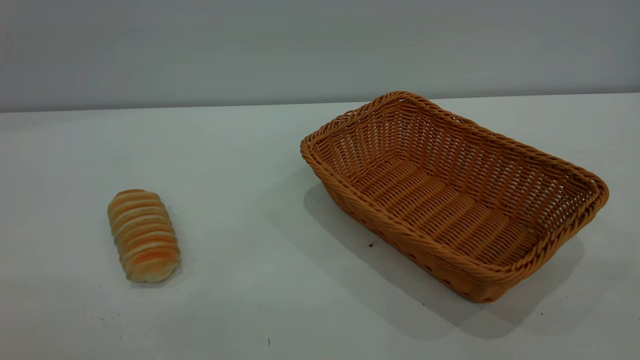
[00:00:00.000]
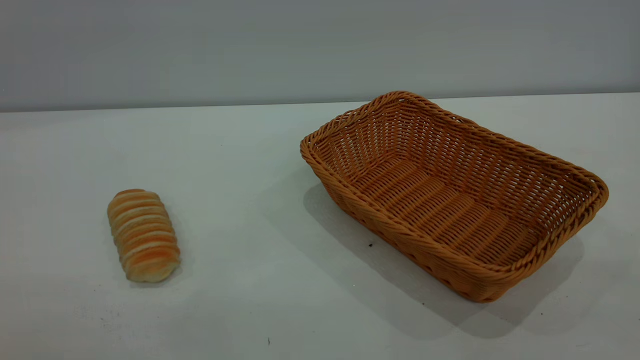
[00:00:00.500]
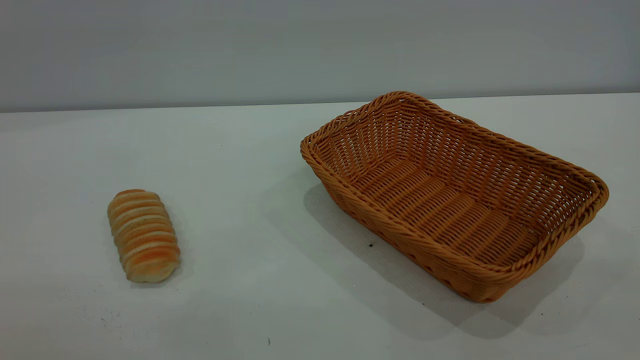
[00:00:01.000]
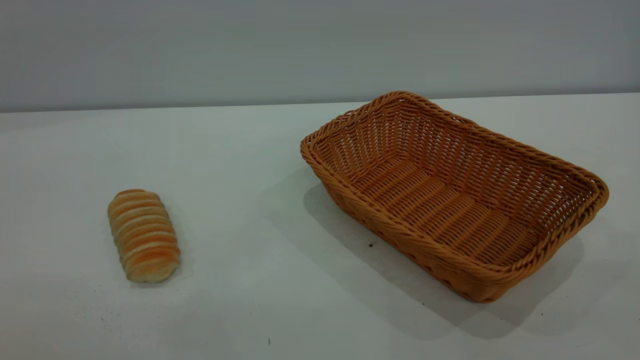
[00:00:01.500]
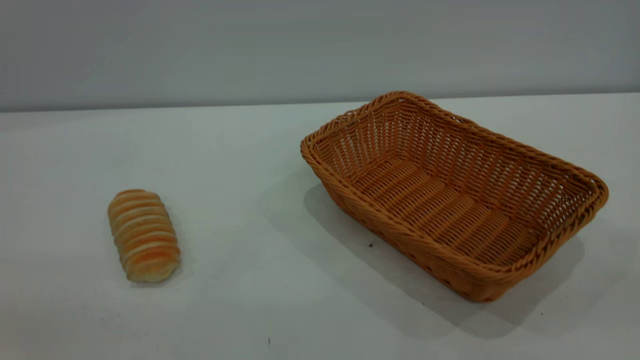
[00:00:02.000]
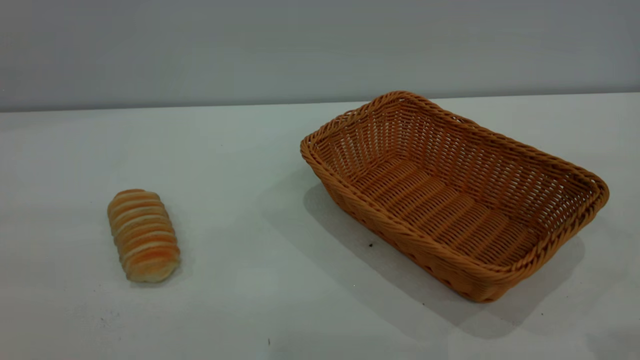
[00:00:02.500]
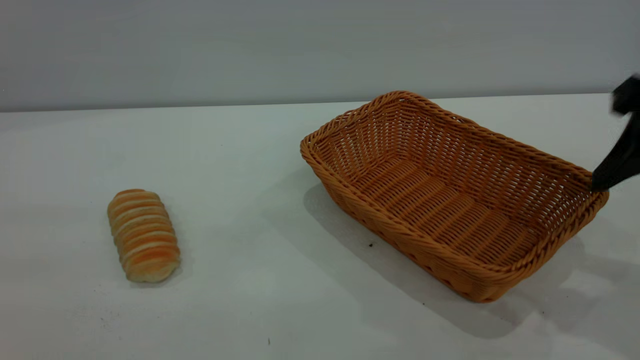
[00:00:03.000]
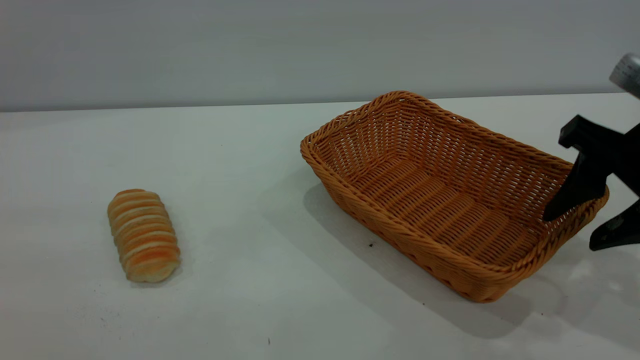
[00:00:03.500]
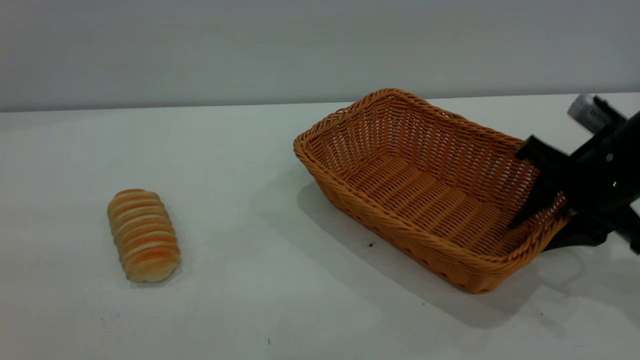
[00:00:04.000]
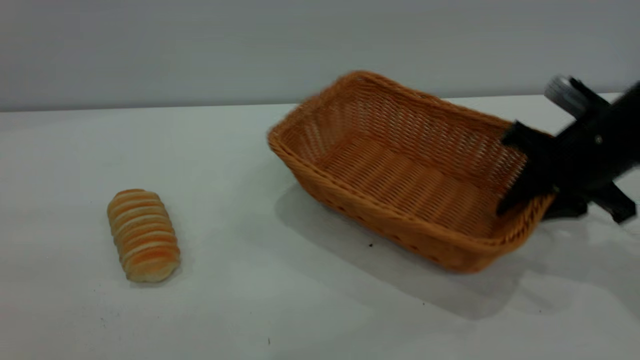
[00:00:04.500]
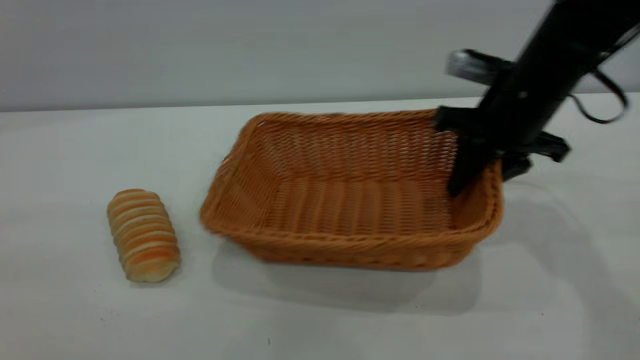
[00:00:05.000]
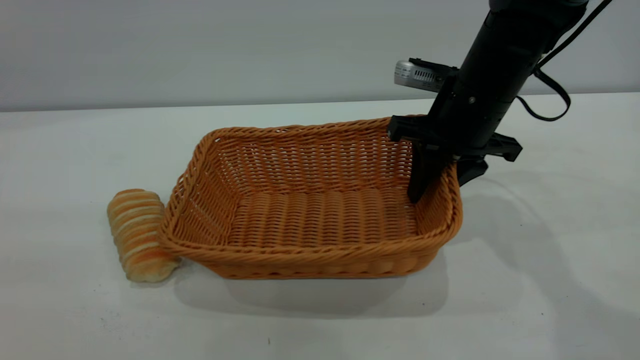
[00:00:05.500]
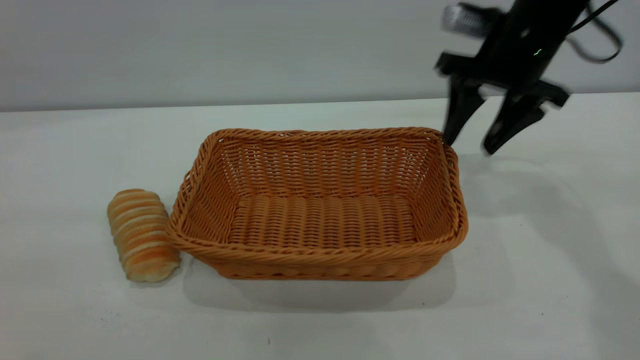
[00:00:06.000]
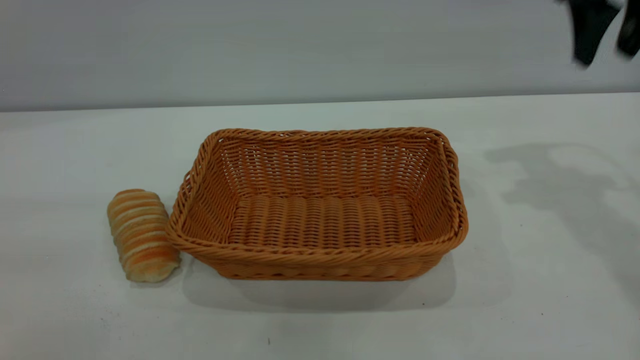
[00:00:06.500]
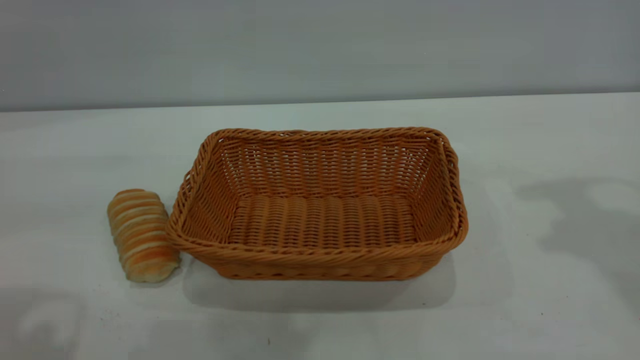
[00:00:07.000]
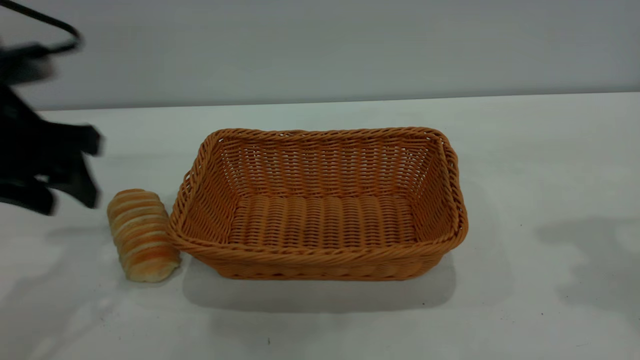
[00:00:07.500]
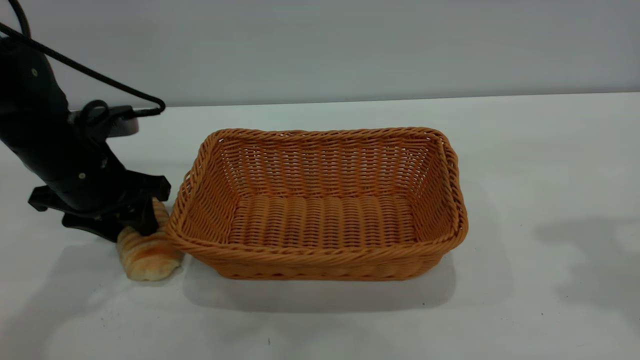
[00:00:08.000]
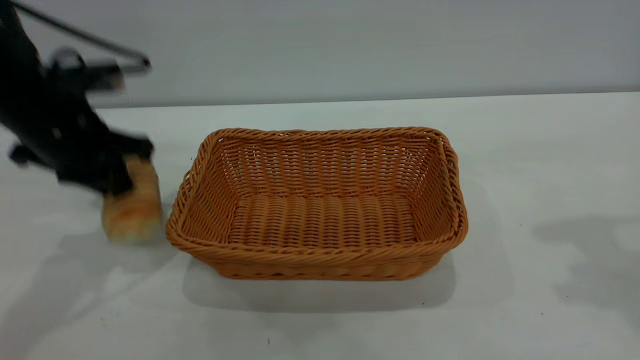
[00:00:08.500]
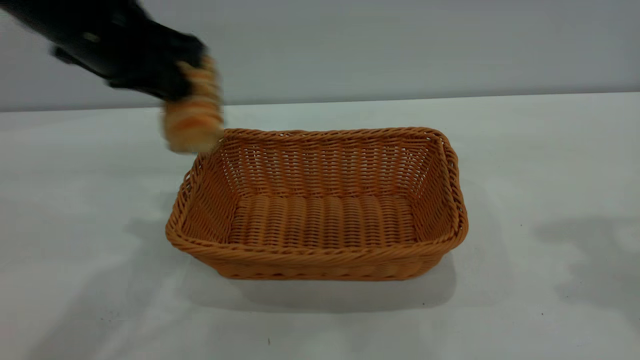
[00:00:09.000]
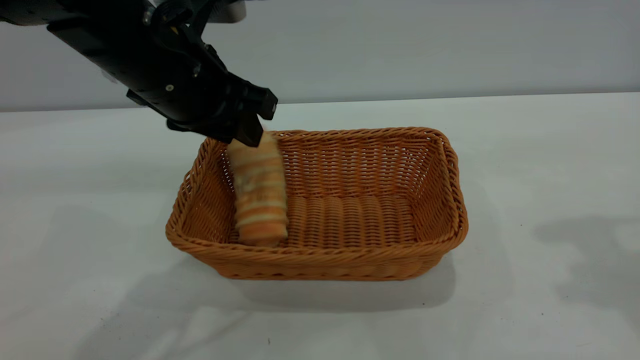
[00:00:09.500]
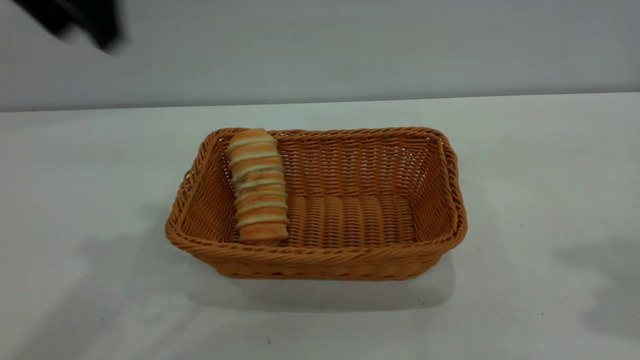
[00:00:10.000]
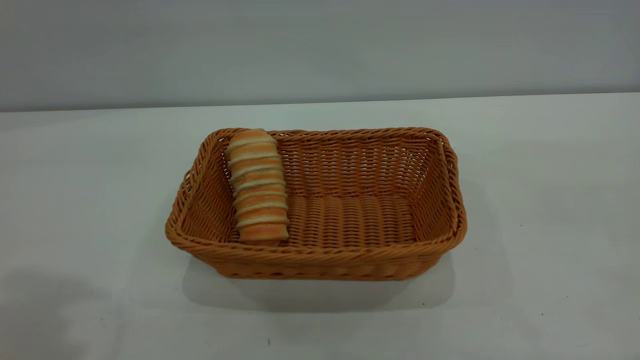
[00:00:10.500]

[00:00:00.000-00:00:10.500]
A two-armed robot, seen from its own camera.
Task of the whole recording: One hand grasps the yellow basket and places it in the middle of the table, while the other hand picks up the long bread and puts it into the yellow basket.
Step, 00:00:00.000 to 00:00:06.000: Move the basket to the center of view.
Step, 00:00:09.000 to 00:00:09.500: place the bread into the basket.
00:00:02.000 to 00:00:04.000: The right gripper moves forward and downward, some 40 cm, and closes. Meanwhile the left gripper goes some 5 cm forward.
00:00:04.000 to 00:00:06.500: The right gripper travels upward and forward by about 20 cm, and opens its fingers.
00:00:06.500 to 00:00:08.500: The right gripper is displaced backward by roughly 15 cm, while the left gripper moves forward and downward, approximately 30 cm, and closes up.
00:00:08.500 to 00:00:10.500: The right gripper goes some 15 cm backward; the left gripper heads upward and backward, covering roughly 30 cm, and opens its fingers.
